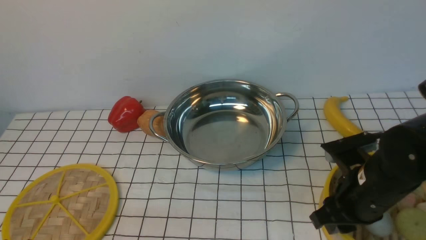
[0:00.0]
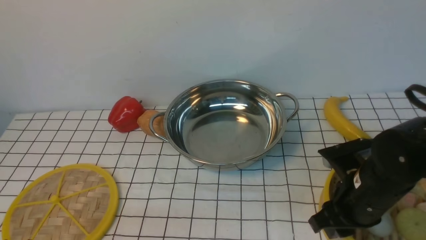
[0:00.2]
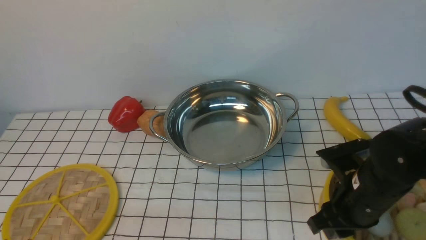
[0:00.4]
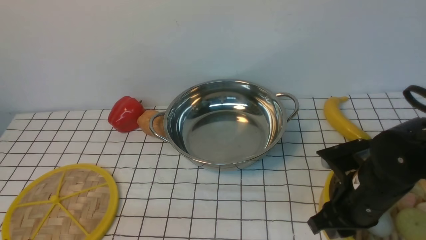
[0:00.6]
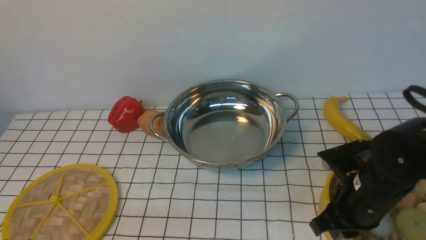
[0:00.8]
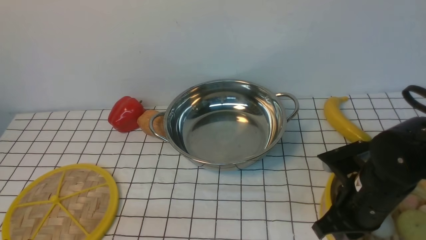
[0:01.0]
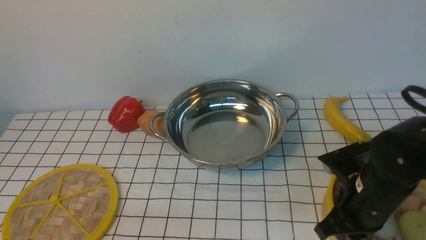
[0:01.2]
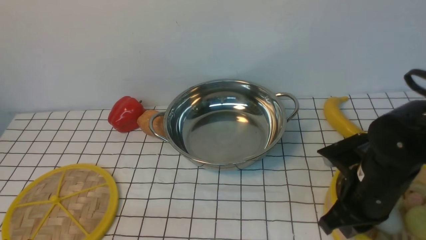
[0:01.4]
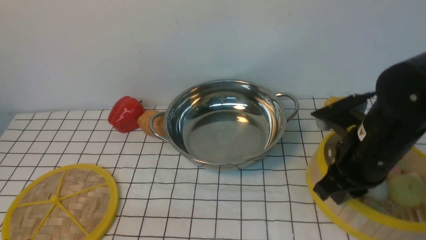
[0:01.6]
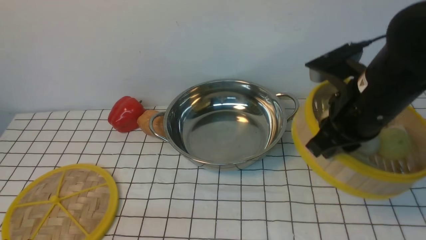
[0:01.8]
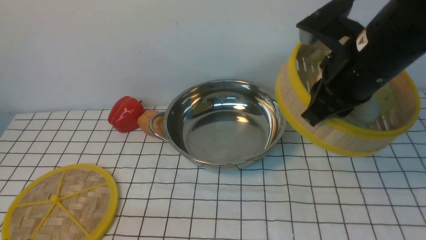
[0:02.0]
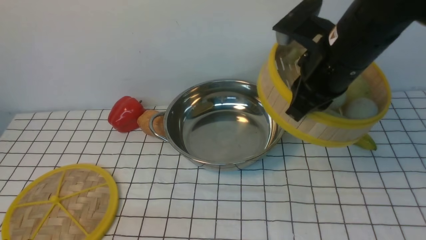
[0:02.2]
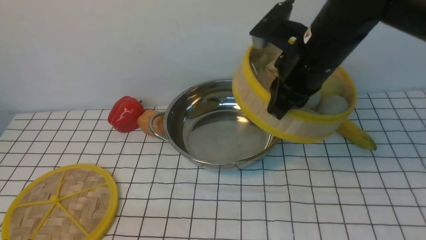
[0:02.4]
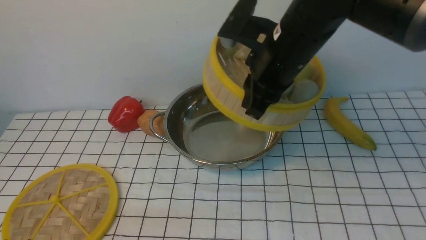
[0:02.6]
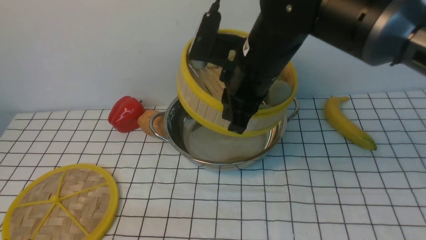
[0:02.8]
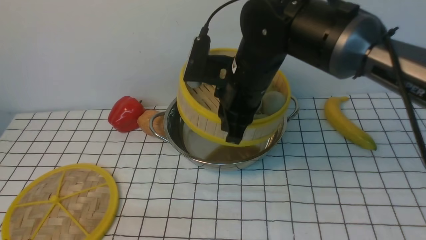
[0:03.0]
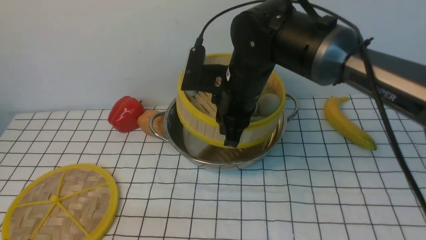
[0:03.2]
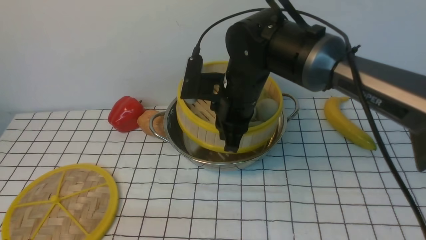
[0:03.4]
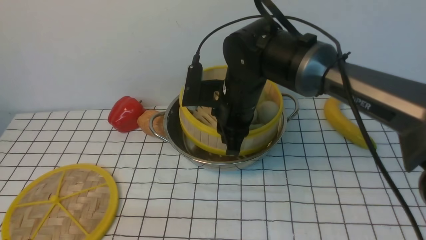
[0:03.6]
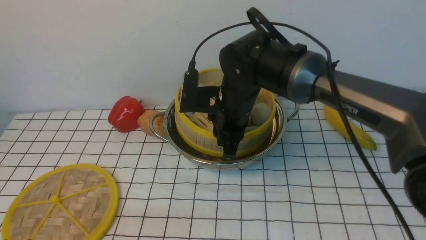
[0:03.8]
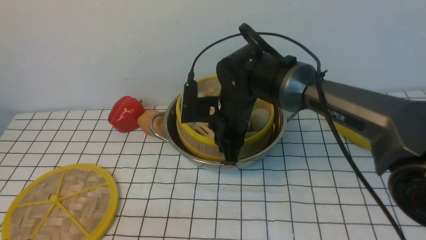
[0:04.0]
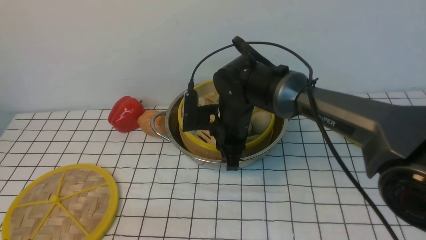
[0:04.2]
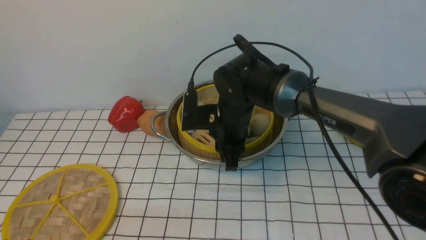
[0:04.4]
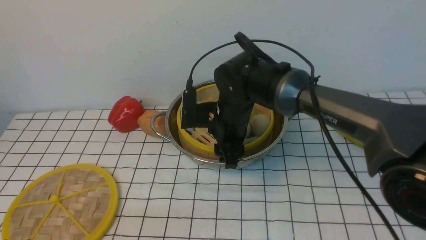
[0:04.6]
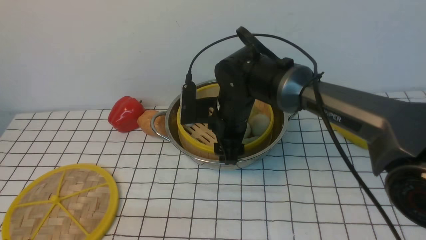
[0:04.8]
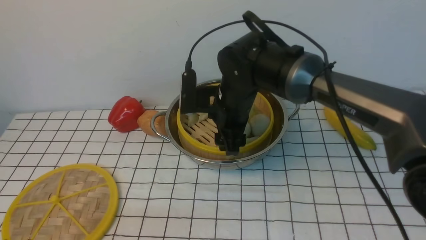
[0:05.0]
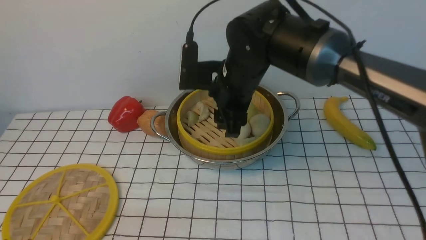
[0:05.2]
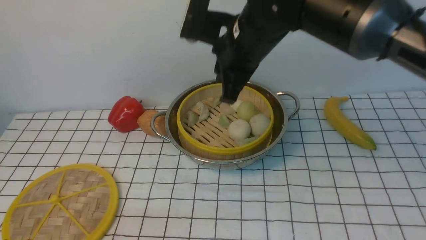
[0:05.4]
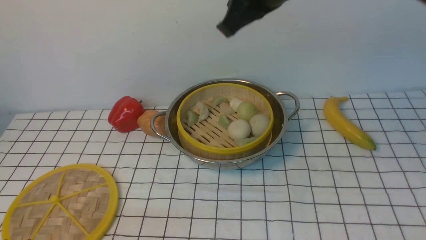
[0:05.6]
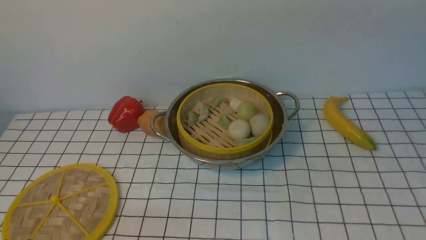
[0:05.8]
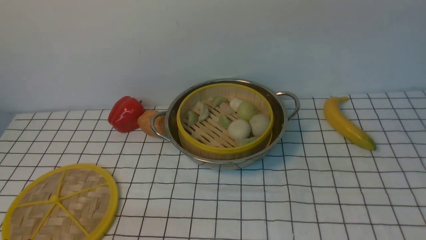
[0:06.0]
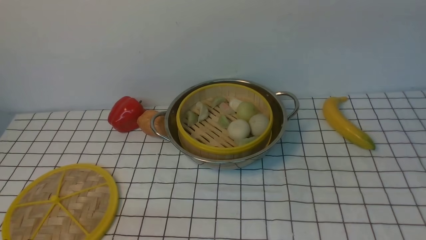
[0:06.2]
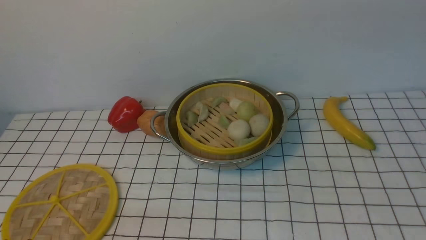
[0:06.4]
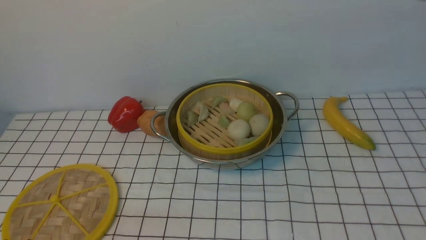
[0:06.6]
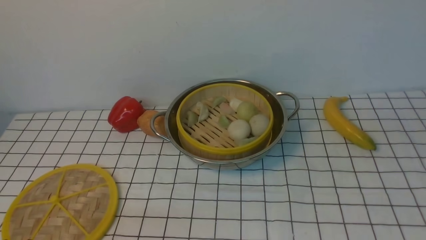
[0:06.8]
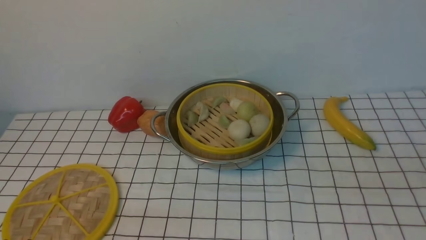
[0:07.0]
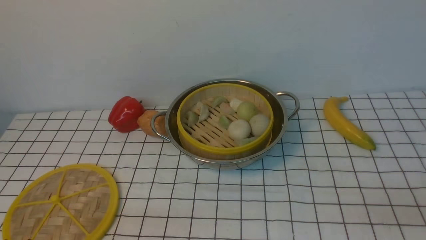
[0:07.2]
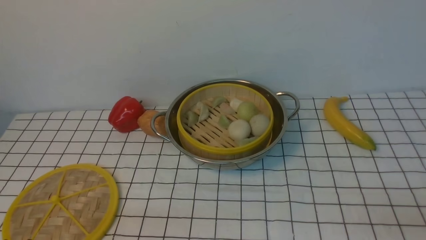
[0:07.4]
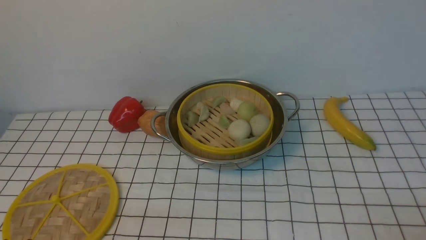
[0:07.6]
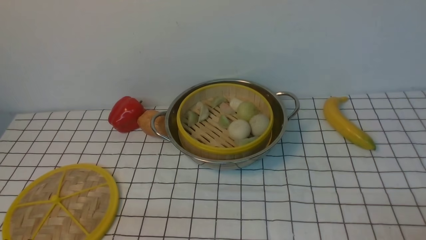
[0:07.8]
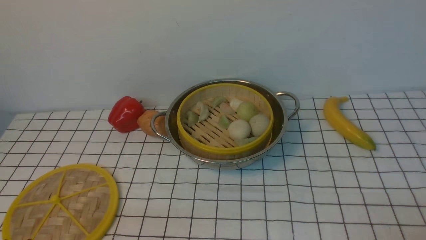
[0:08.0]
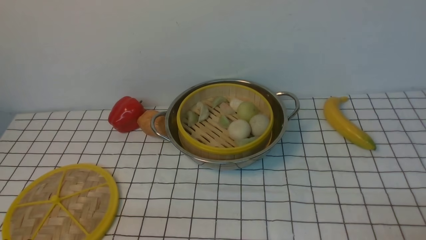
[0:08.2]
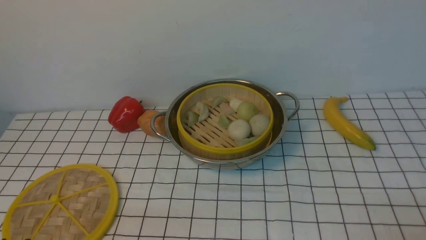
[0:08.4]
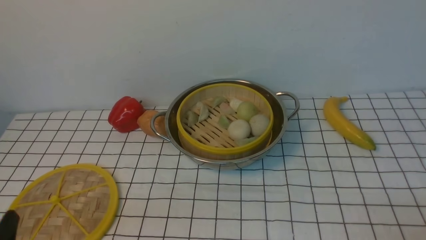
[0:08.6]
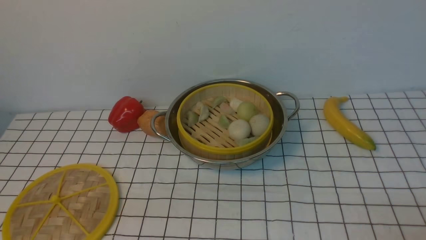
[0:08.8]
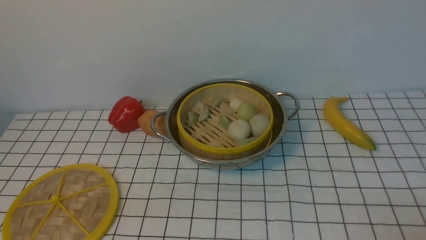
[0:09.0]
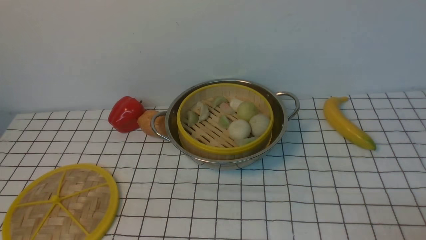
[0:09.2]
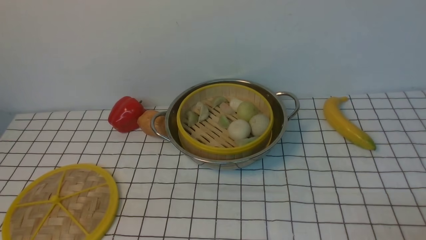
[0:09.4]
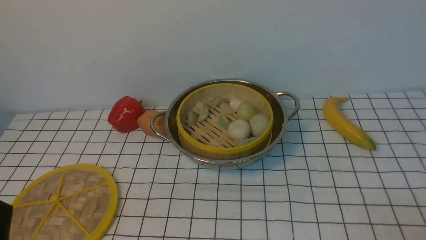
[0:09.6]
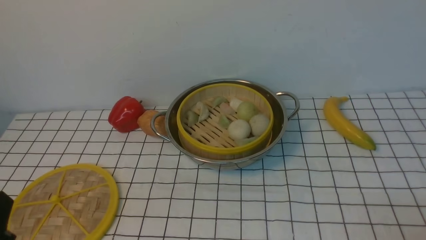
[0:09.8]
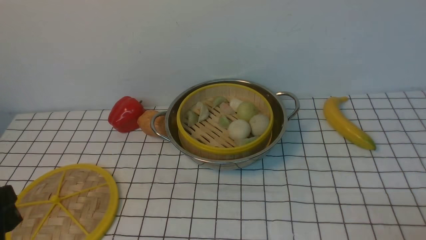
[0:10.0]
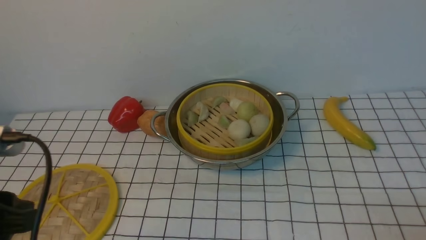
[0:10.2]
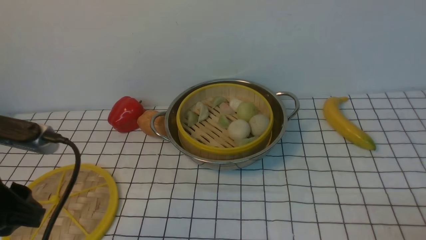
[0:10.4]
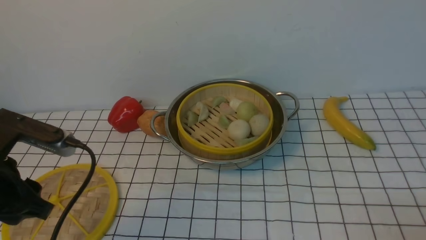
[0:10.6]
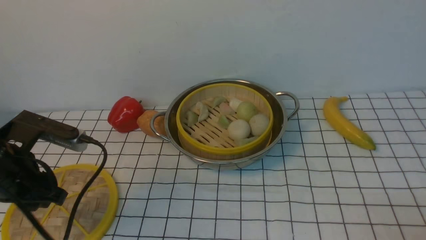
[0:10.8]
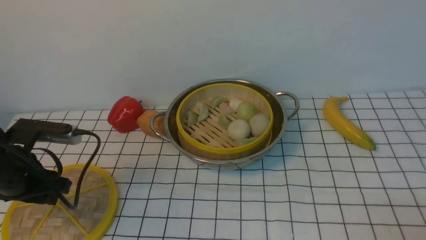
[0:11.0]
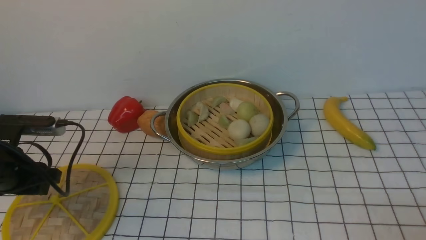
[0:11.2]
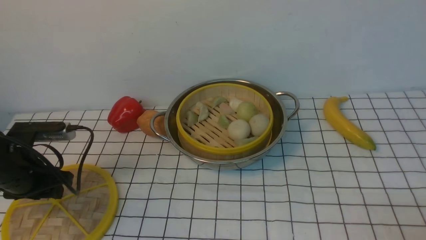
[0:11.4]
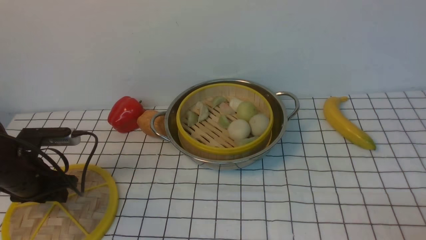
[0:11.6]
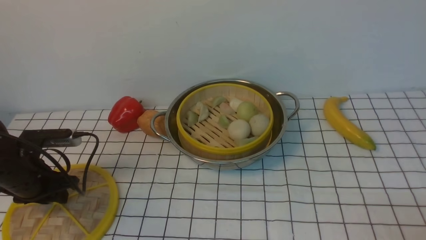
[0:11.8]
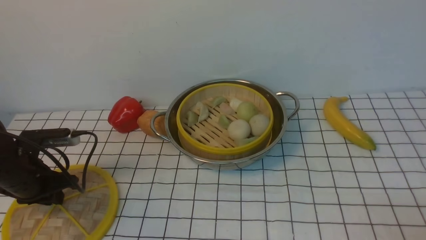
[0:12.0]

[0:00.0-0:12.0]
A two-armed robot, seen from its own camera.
Task of the whole recording: place the steamer in the pot on the white tablecloth, and put the lid on the steamer.
Step, 0:01.6 to 0:05.2: use the right arm to put the steamer into the iron steamer pot in the middle.
0:00.0 to 0:01.6: The right gripper goes about 5 cm upward, and closes its fingers.
0:01.6 to 0:03.0: The right gripper is displaced to the left and forward by some 15 cm.
0:03.0 to 0:04.4: The right gripper shifts approximately 10 cm downward.
0:04.4 to 0:06.0: The right gripper goes about 30 cm upward, and closes up.
0:09.0 to 0:10.4: The left gripper shifts approximately 15 cm forward and upward.
0:10.4 to 0:12.0: The left gripper travels downward, forward and to the left by some 20 cm, and closes.

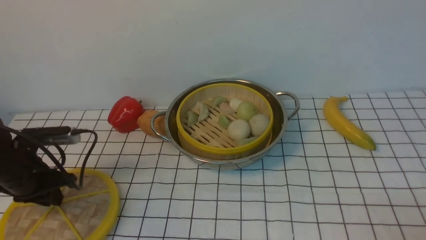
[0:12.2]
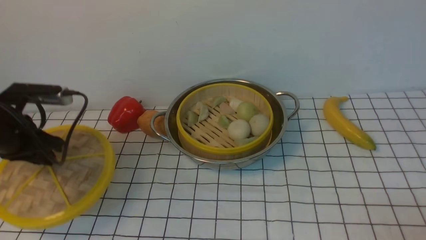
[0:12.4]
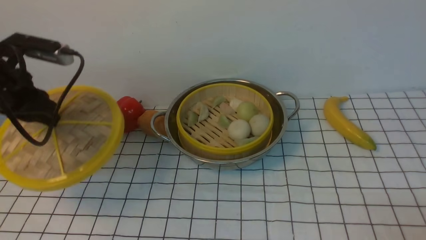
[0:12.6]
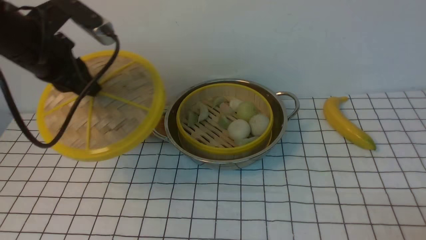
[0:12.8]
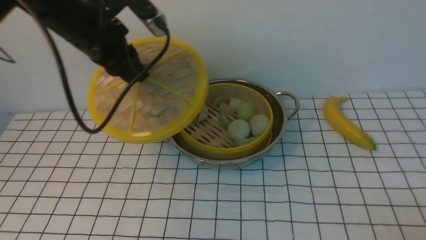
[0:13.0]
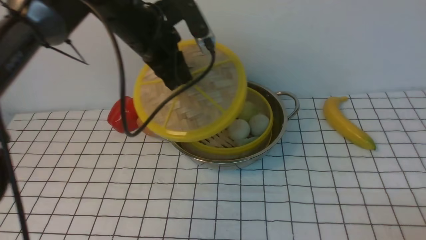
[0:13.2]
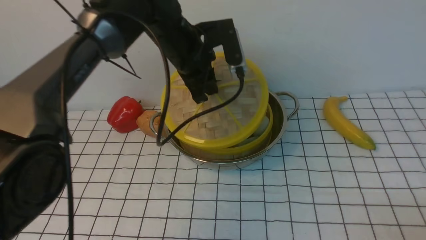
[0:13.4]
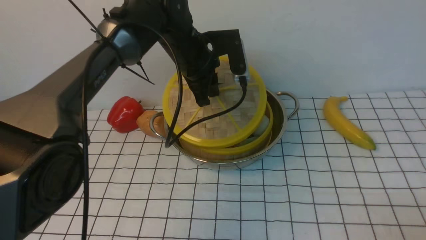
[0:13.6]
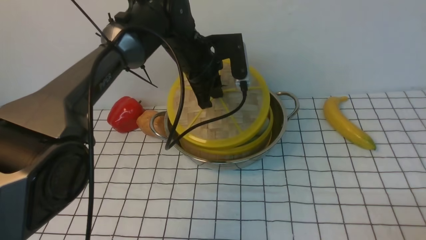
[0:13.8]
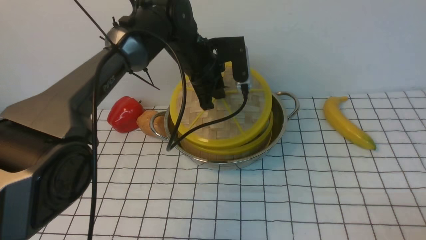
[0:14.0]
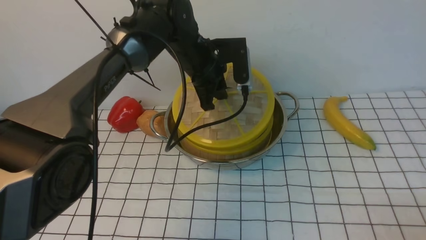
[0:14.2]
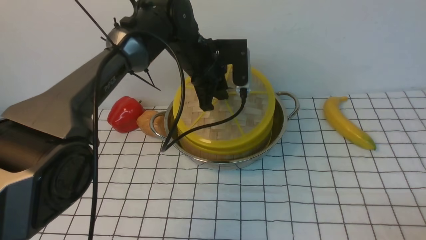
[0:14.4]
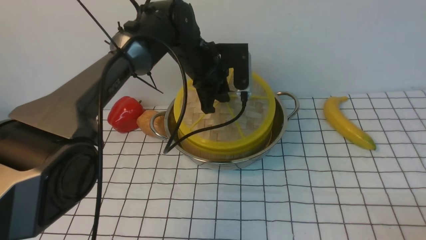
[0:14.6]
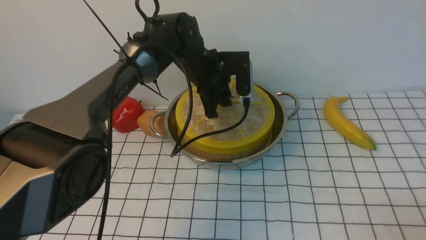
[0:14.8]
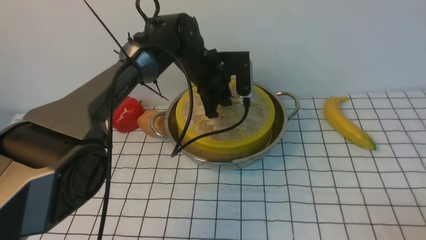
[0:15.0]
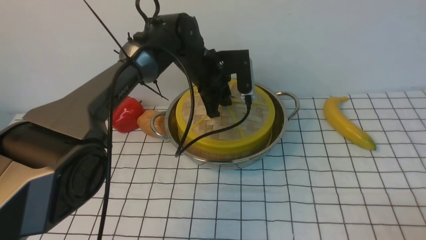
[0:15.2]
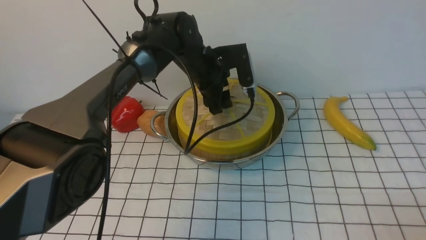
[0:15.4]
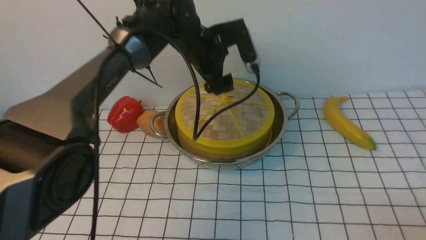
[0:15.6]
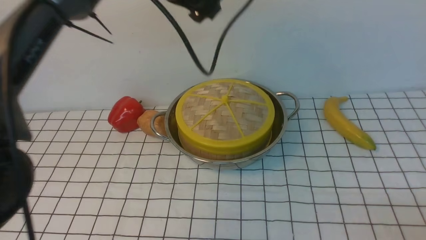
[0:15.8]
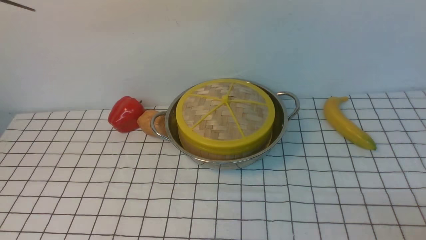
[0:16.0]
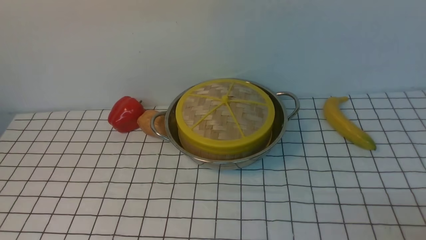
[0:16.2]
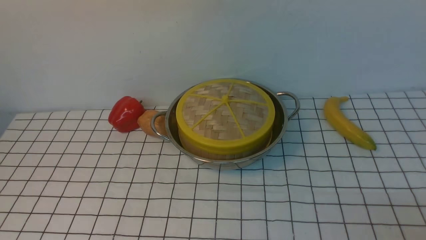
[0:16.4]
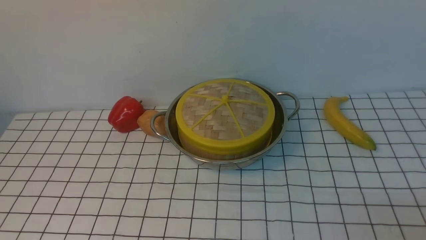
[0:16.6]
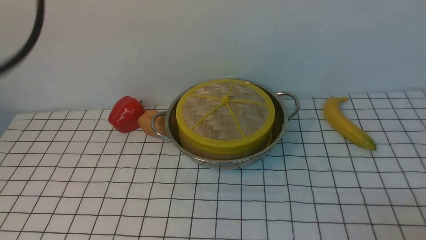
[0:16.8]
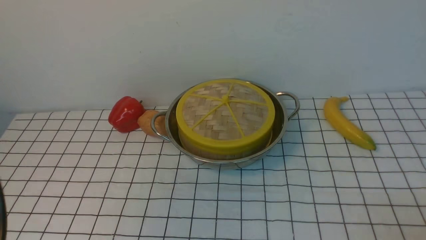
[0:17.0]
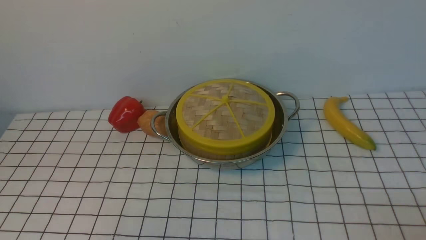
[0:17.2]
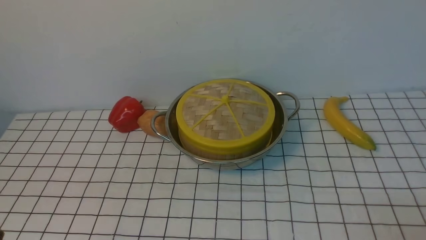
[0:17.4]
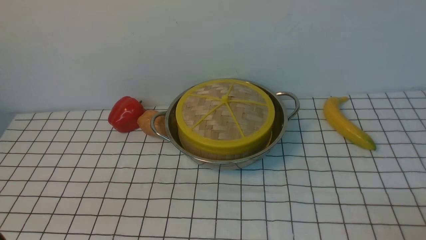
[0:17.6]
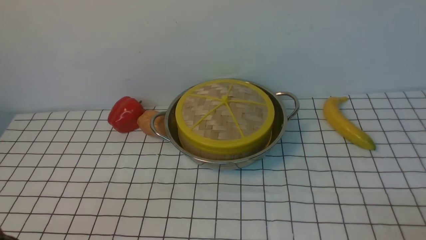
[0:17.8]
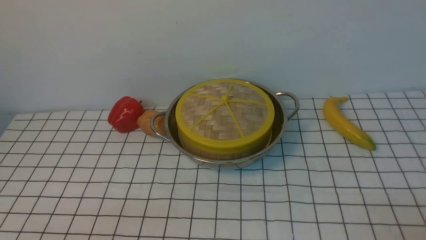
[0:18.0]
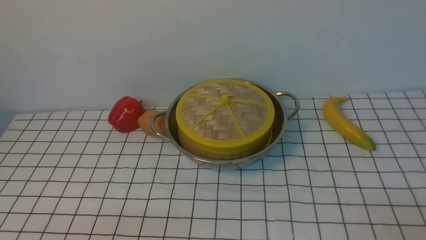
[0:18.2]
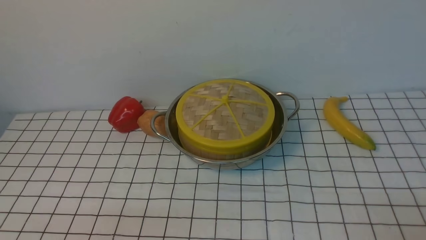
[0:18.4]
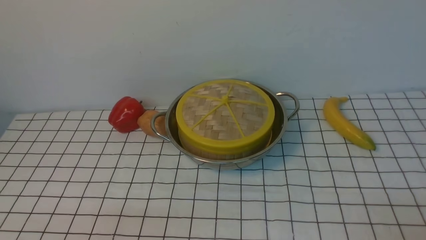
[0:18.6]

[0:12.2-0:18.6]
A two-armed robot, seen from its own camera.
Task of the whole recording: place the steamer in the pot on the white tablecloth, and put the lid on the steamer.
Step, 0:12.4 to 0:15.6: use the left arm to place the steamer lid on the steamer.
0:12.2 to 0:13.8: The left gripper goes approximately 30 cm to the right and forward.
0:13.8 to 0:15.4: The left gripper opens its fingers.
0:15.4 to 0:17.0: The left gripper is displaced backward, to the left and upward by approximately 40 cm, and closes.
